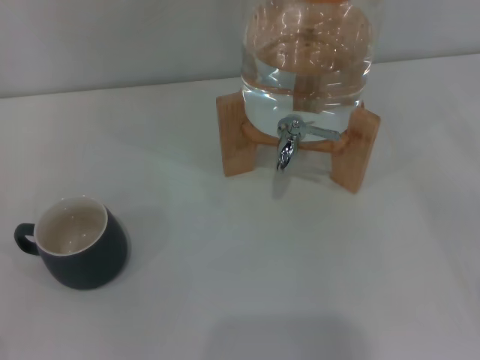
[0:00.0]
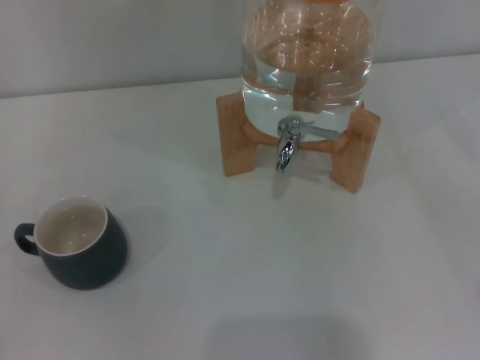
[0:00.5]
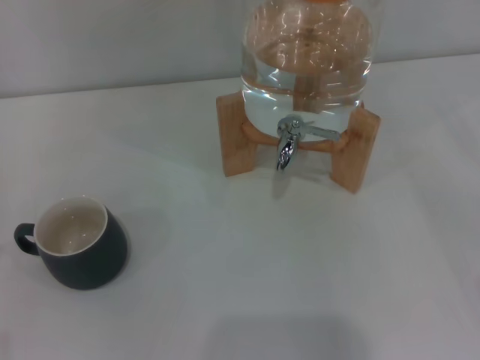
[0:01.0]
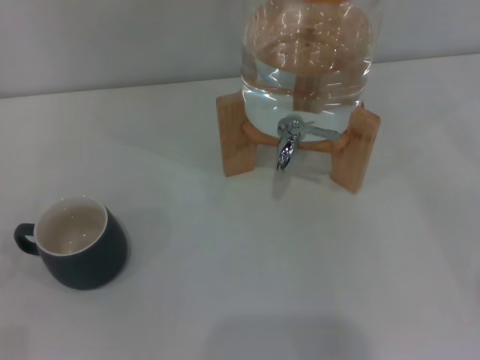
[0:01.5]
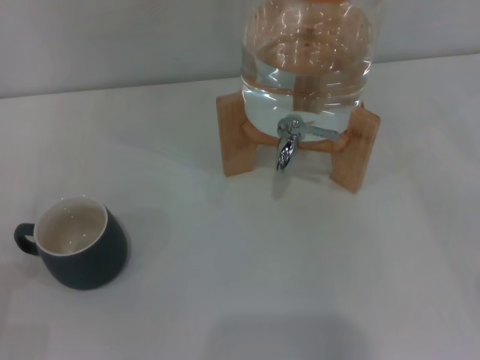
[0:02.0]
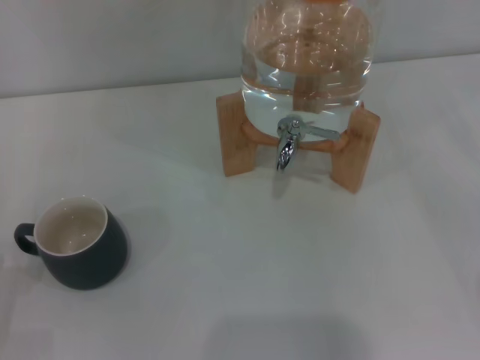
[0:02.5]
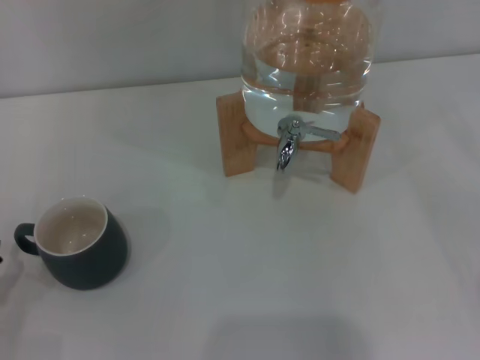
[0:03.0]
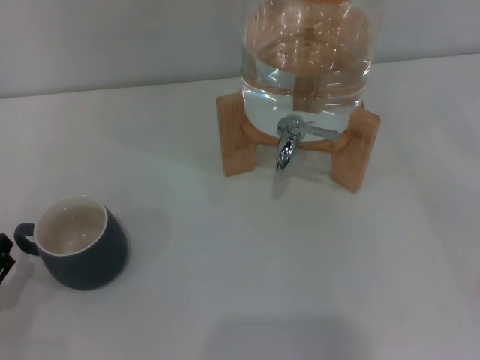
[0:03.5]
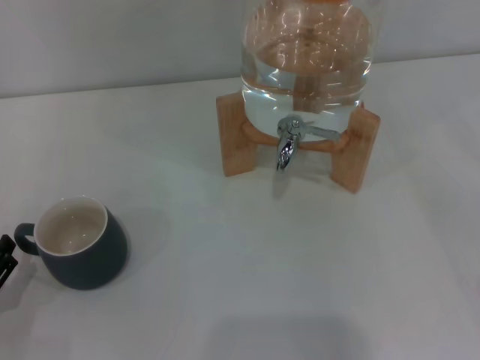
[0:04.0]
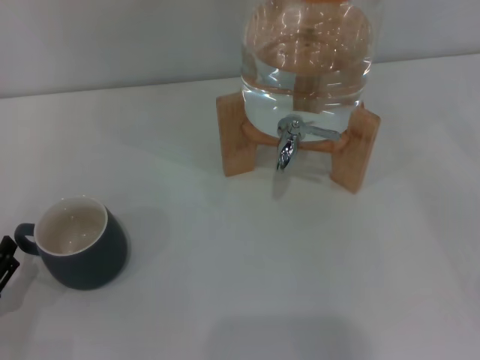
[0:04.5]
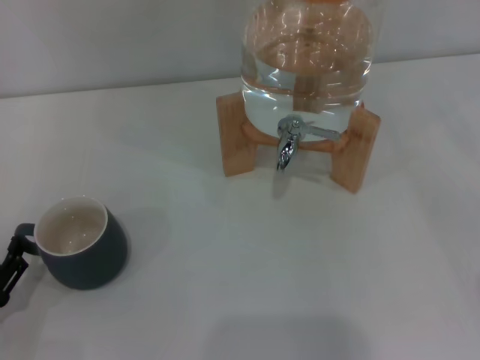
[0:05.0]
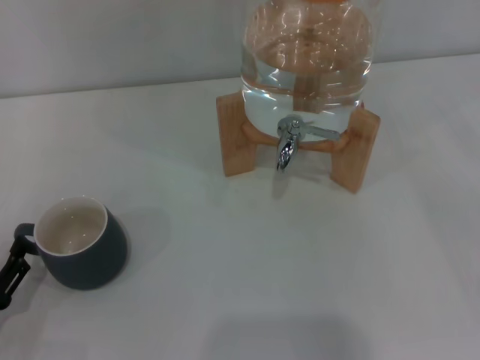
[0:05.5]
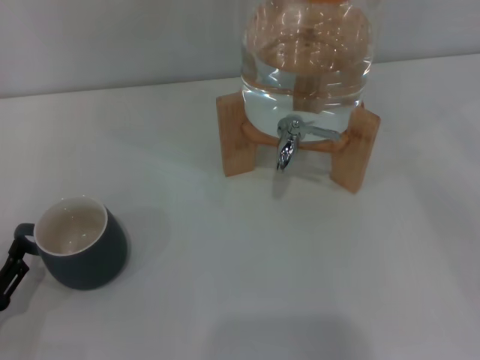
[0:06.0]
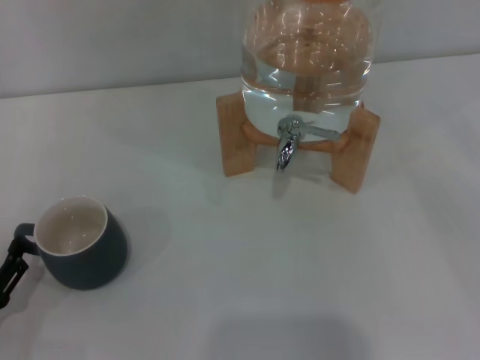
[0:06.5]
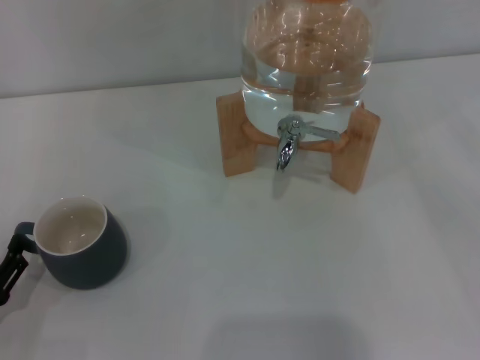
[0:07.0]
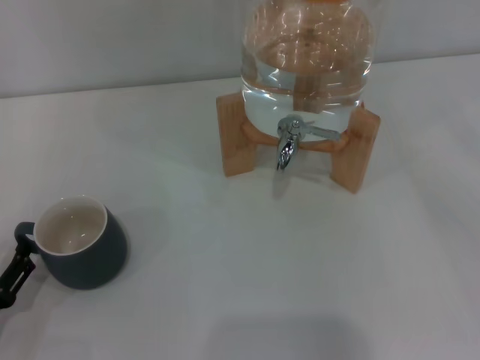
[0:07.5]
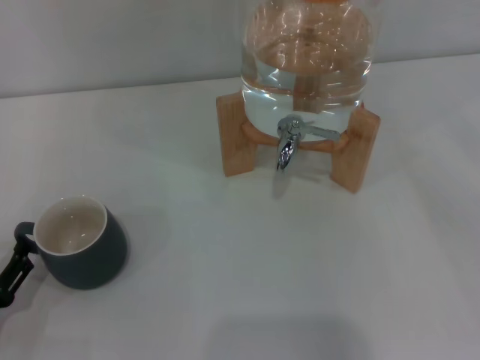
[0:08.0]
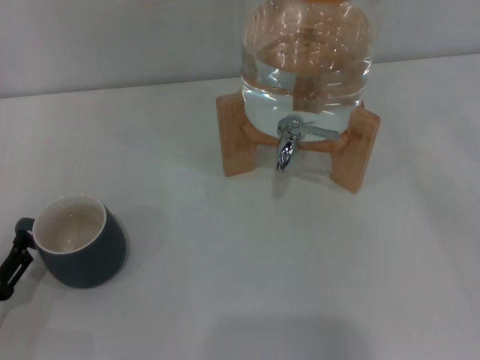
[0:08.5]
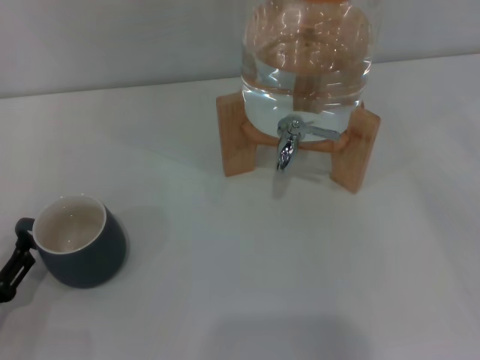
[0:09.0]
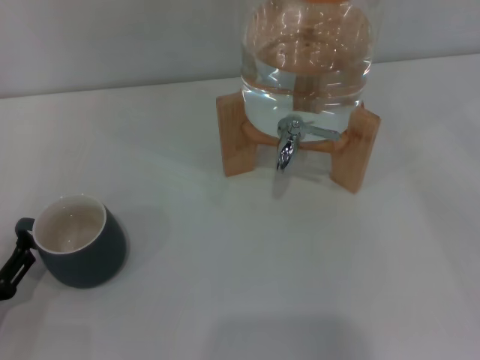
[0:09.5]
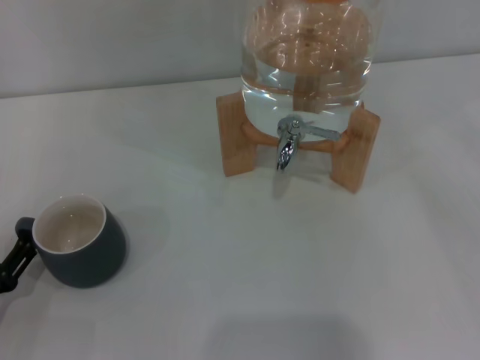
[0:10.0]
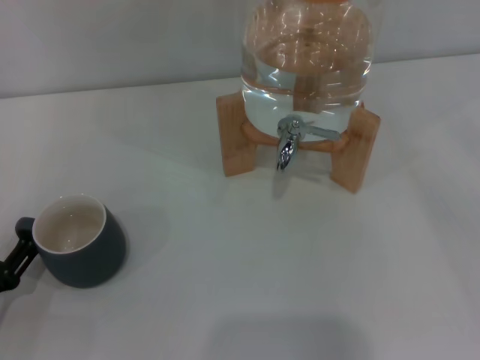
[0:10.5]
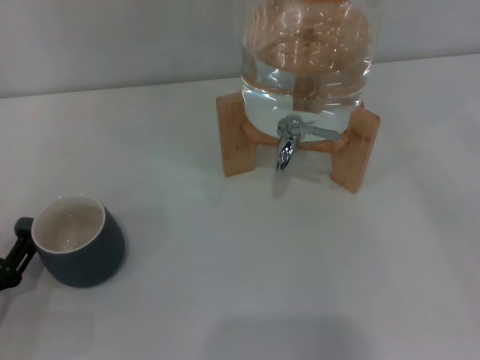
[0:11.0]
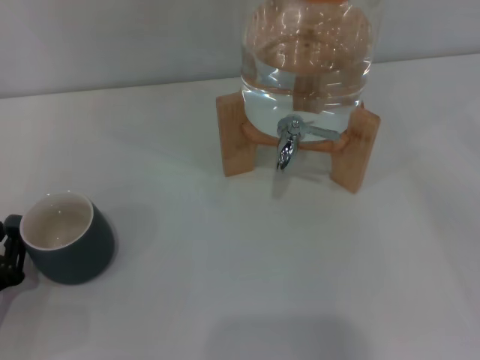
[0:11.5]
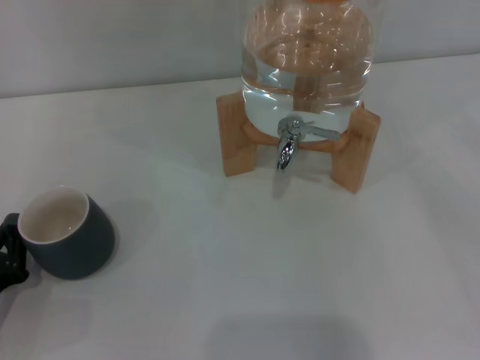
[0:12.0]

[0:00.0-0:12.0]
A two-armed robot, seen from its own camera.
Task of the whole recording: the left gripper pick up the black cup and place it horizontally under the faucet, the right gripper turn on the faucet to fill the cup, and then turn off the faucet.
0:06.0 to 0:08.0: Both grippers stay put.
0:10.0 to 0:12.0: The left gripper closes its fingers.

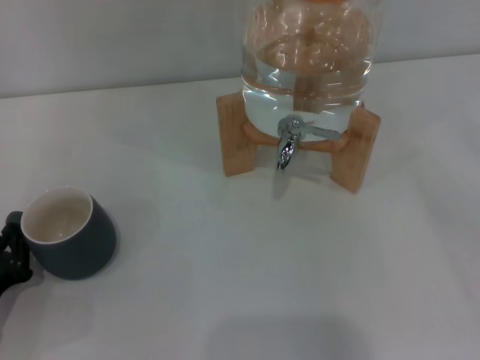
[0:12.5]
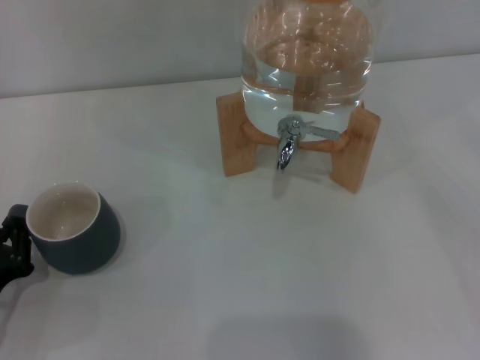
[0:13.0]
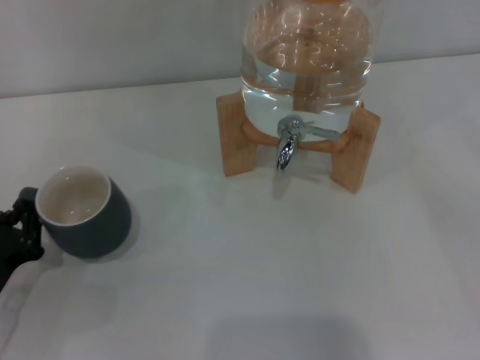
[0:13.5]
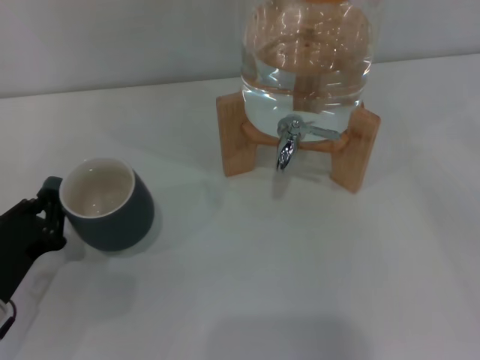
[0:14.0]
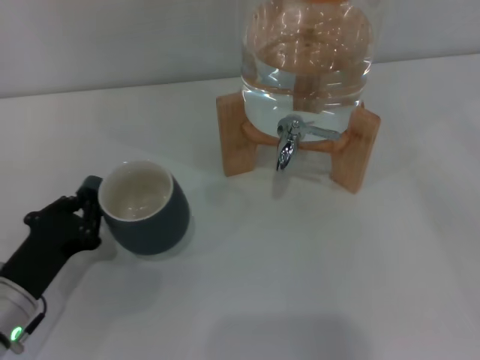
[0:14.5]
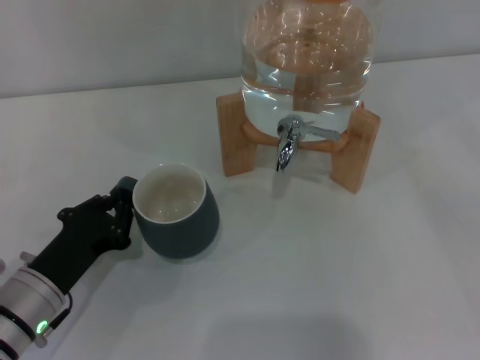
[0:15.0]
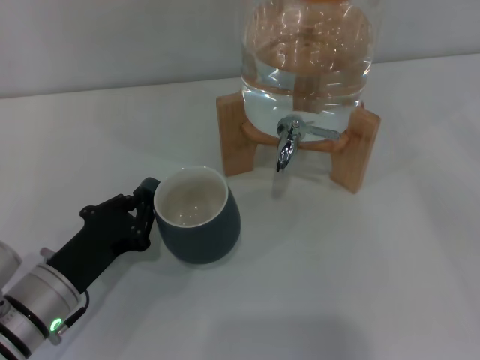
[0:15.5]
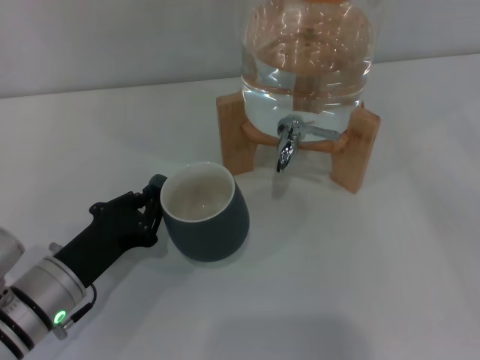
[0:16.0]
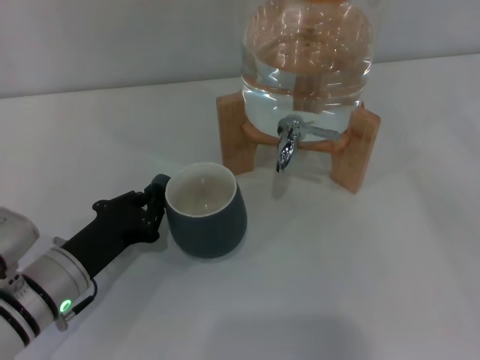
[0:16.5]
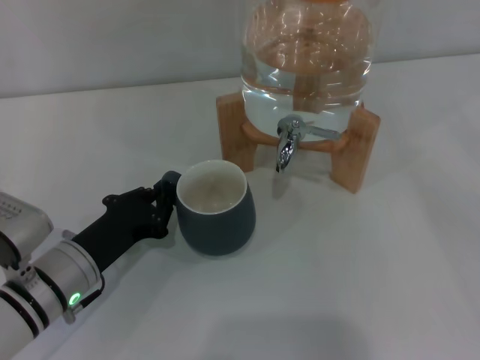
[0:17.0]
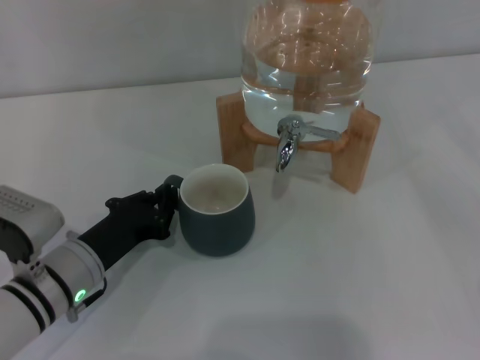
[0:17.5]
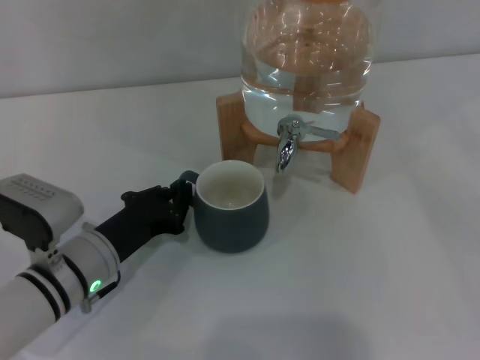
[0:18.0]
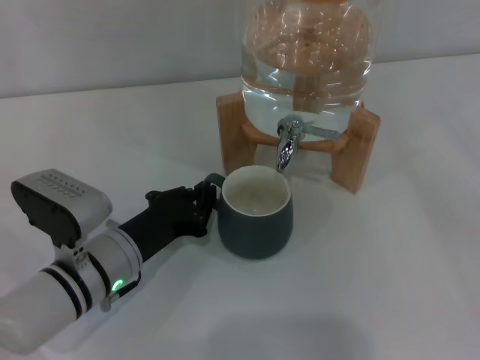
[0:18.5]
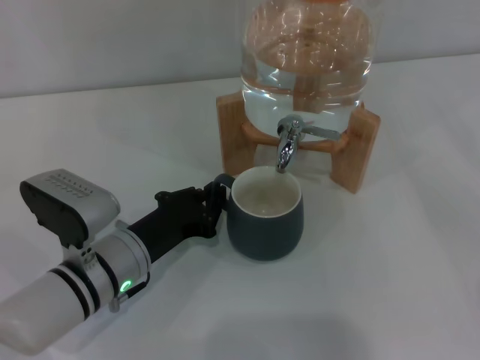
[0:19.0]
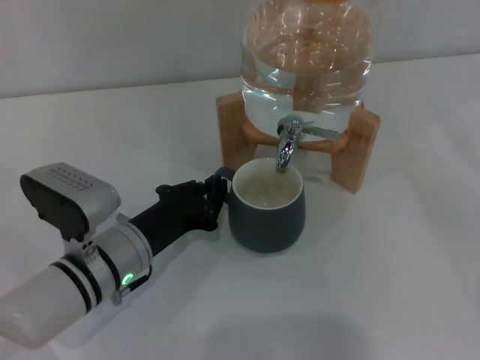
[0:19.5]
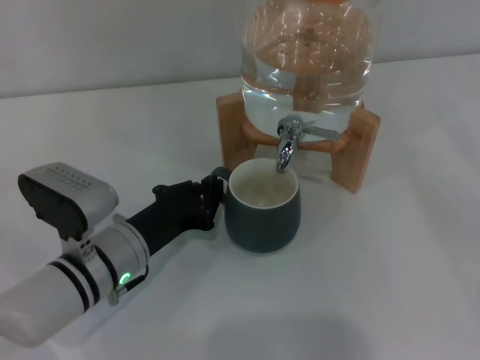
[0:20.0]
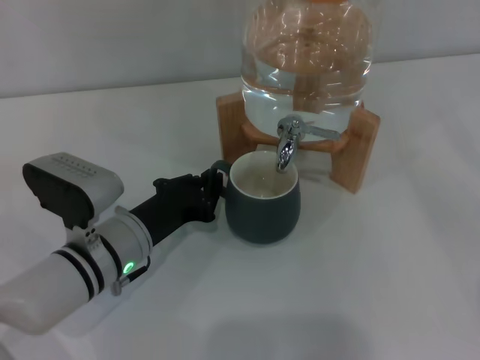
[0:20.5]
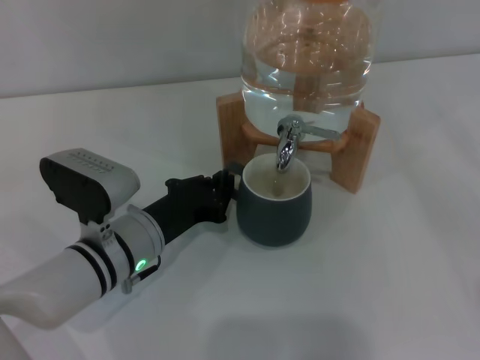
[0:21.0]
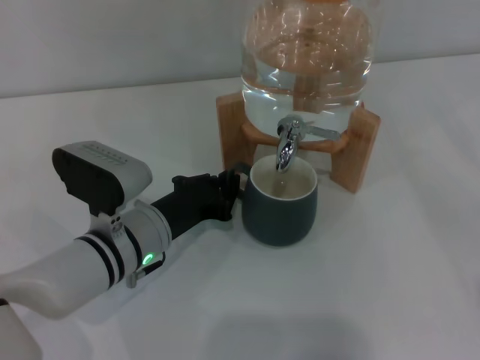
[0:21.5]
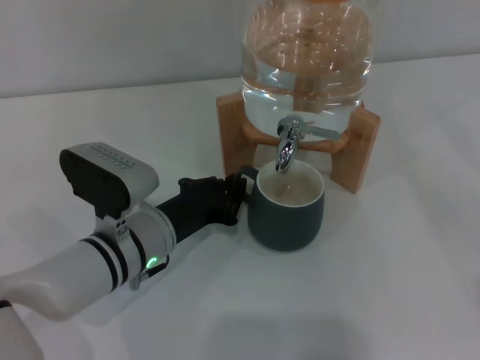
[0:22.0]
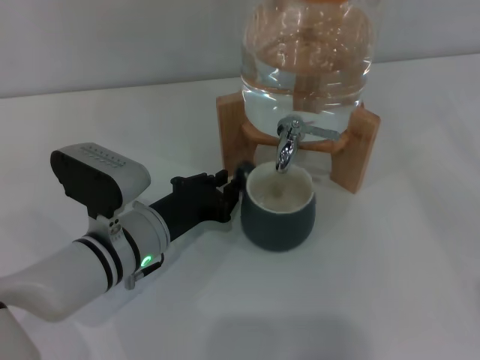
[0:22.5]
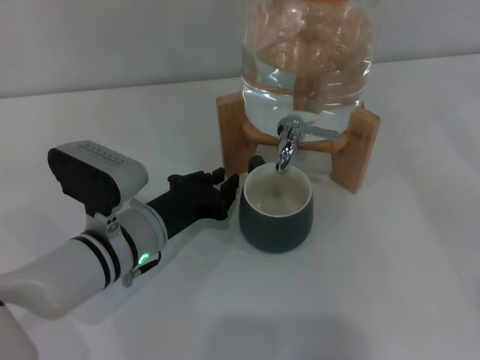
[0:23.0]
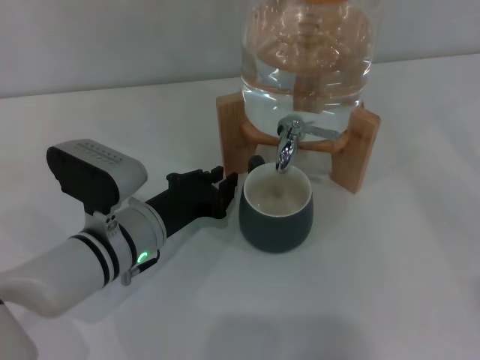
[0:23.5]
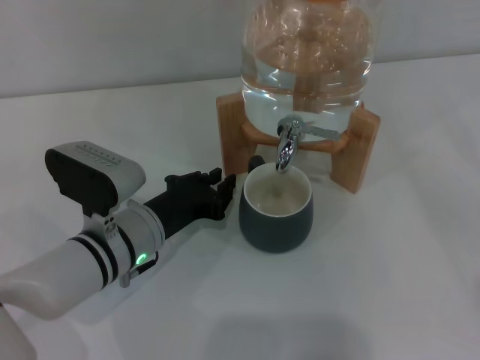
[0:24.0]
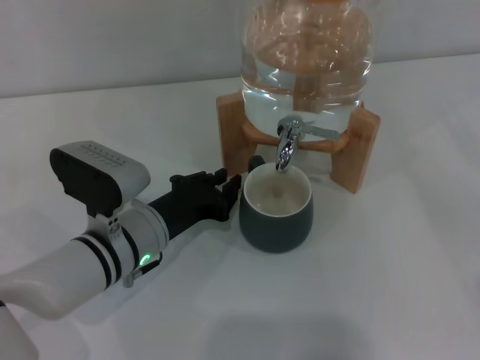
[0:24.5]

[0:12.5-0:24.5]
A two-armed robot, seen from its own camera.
Task of the whole recording: the left gripper pick up the black cup and place it horizontally under the faucet, the right gripper turn on the faucet to fill the cup, and then turn off the faucet.
Step, 0:12.5 to 0:23.5: Move the cup beneath the water dispenser nozzle with the left gripper.
0:12.5 to 0:14.5: The left gripper heads to the right, covering about 5 cm.
0:14.5 to 0:16.5: The left gripper shifts by about 5 cm.
0:16.5 to 0:18.5: The left gripper goes roughly 5 cm to the right.
0:18.5 to 0:22.5: The grippers move only a little.
0:22.5 to 0:24.5: Both grippers stay about where they are.

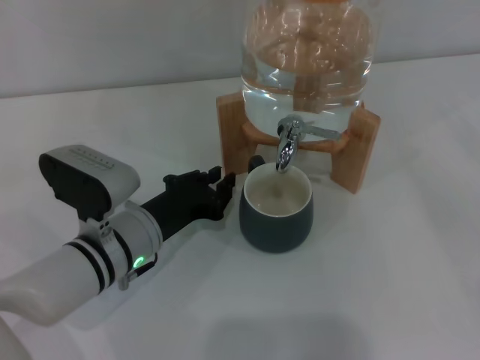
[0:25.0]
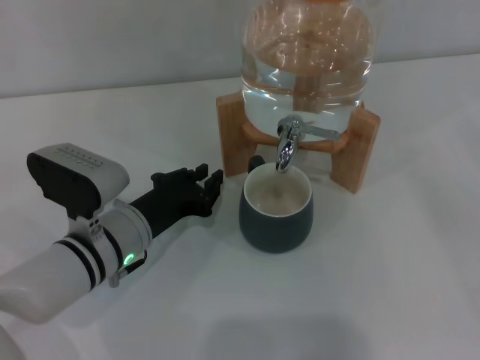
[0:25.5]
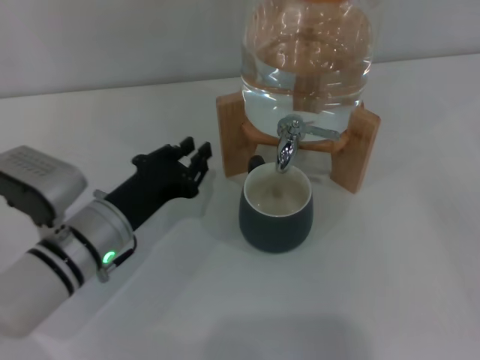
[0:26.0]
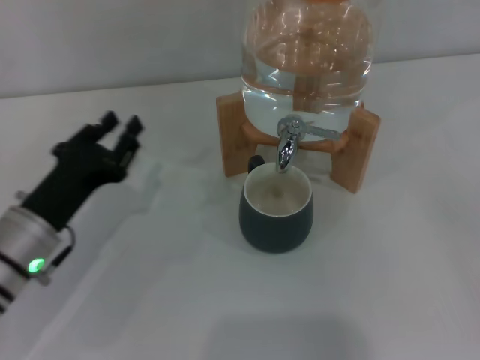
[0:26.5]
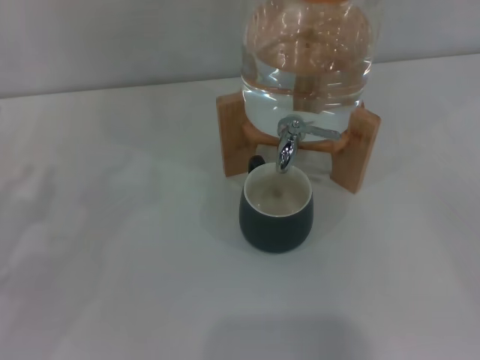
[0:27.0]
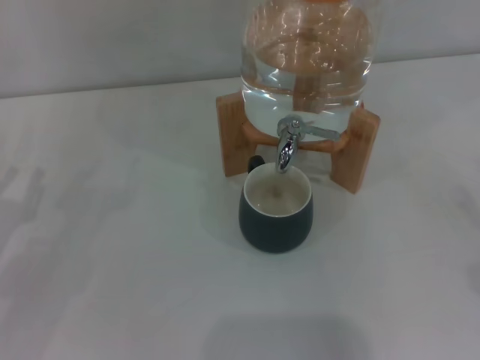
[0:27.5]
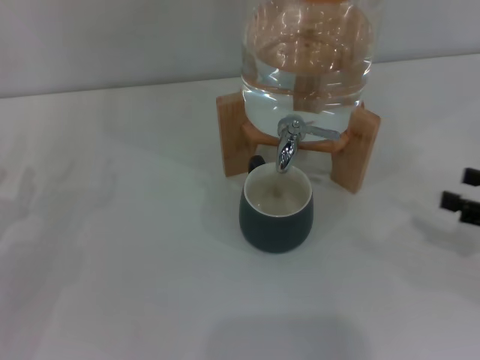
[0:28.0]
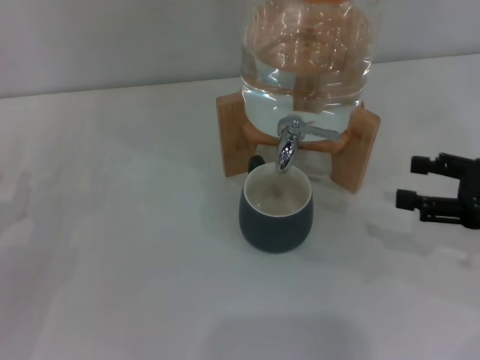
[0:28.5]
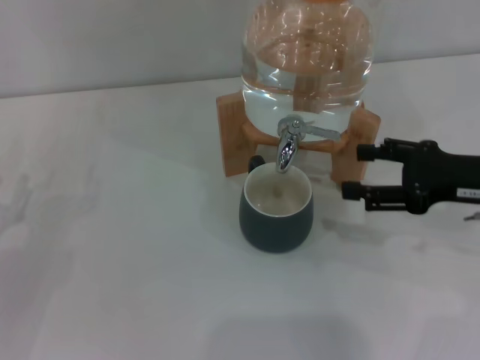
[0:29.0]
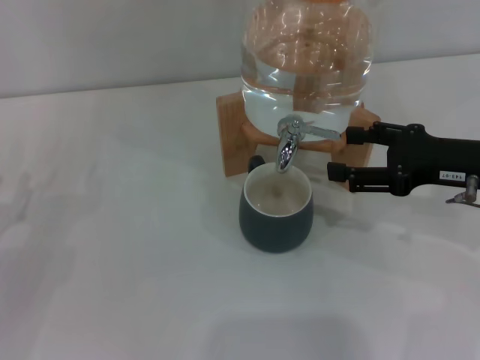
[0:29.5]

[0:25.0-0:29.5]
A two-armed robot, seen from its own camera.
Task of the whole recording: the left gripper pick up the black cup and place it horizontally under the faucet, the right gripper turn on the faucet to fill the cup, and then turn off the faucet.
0:25.0 to 0:27.0: The left gripper goes approximately 20 cm to the left.
0:27.0 to 0:29.5: The right gripper goes about 20 cm to the left, upward and forward.
